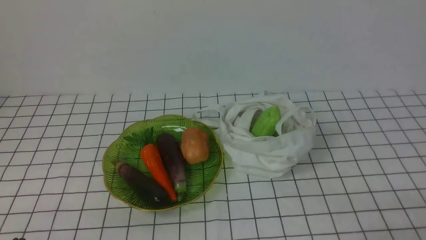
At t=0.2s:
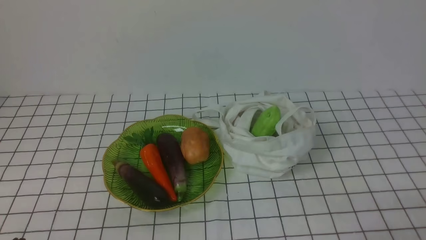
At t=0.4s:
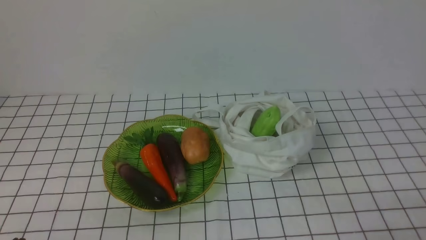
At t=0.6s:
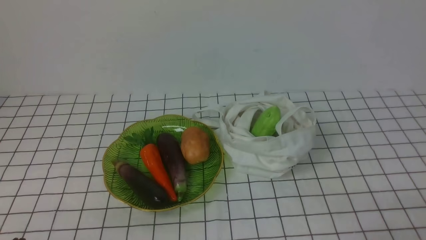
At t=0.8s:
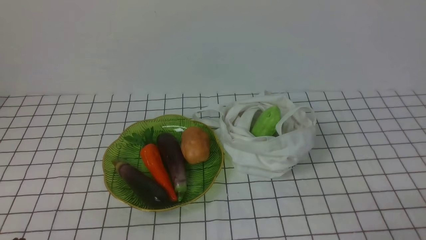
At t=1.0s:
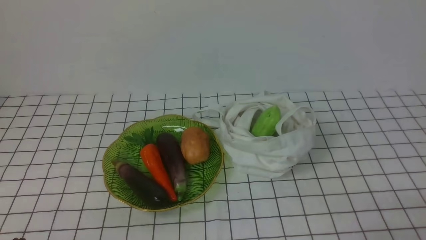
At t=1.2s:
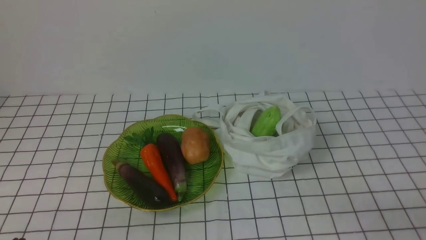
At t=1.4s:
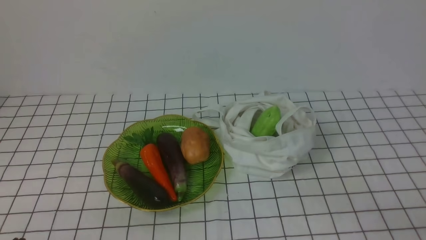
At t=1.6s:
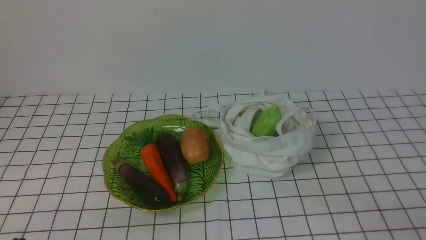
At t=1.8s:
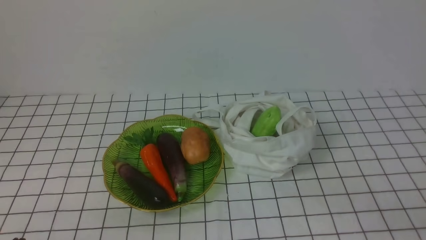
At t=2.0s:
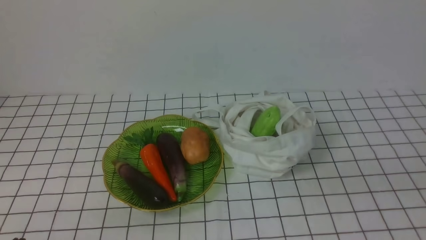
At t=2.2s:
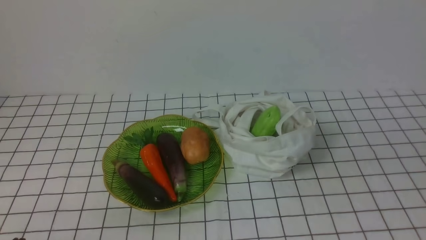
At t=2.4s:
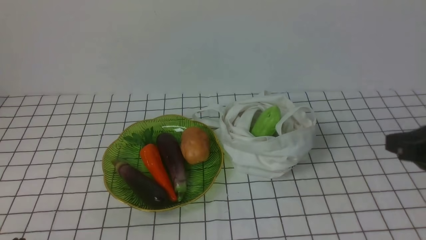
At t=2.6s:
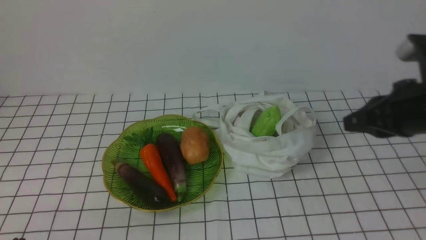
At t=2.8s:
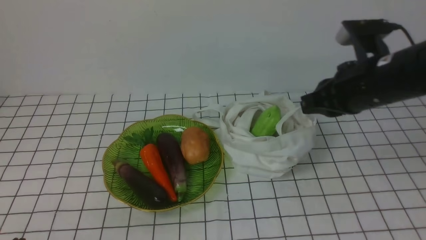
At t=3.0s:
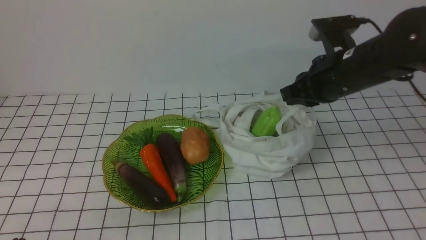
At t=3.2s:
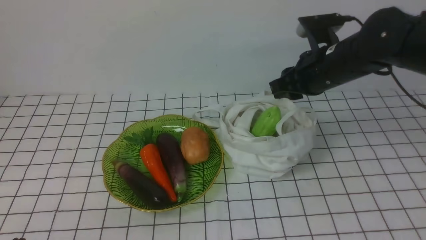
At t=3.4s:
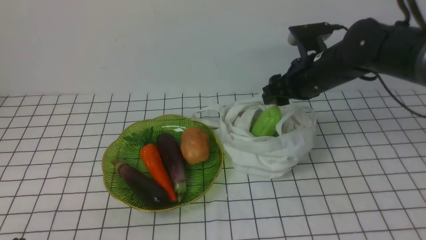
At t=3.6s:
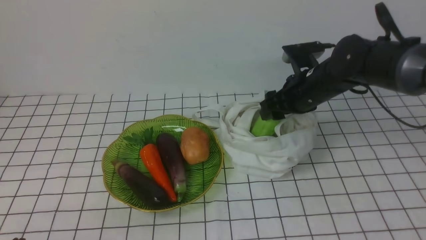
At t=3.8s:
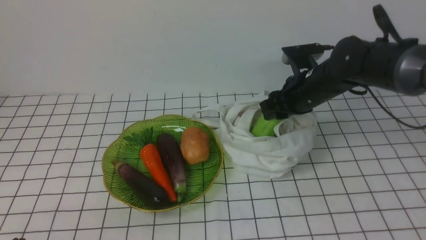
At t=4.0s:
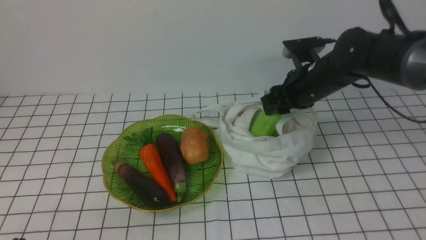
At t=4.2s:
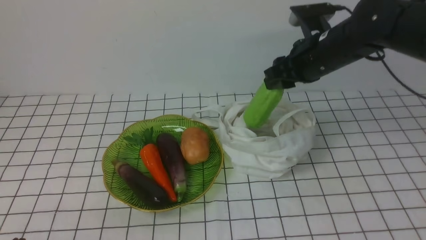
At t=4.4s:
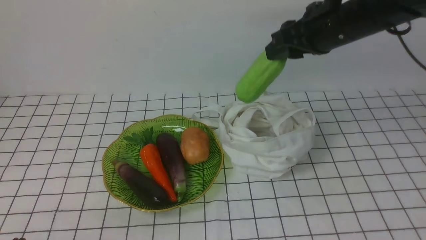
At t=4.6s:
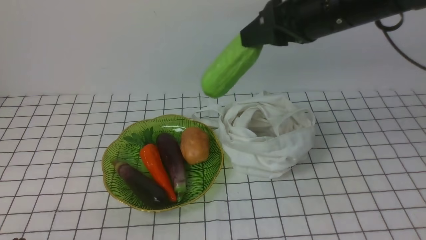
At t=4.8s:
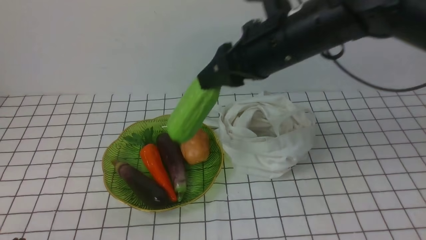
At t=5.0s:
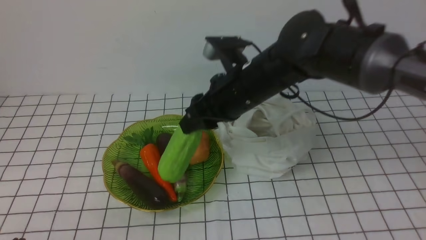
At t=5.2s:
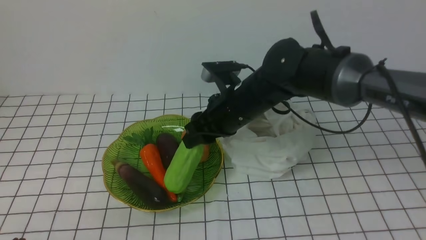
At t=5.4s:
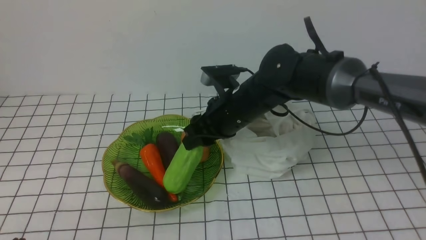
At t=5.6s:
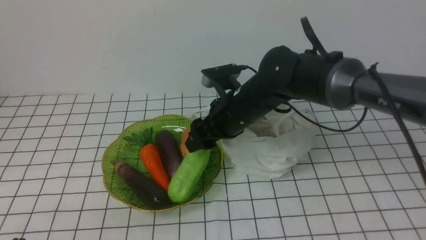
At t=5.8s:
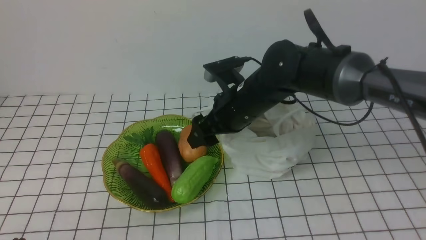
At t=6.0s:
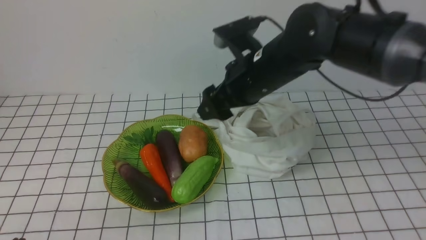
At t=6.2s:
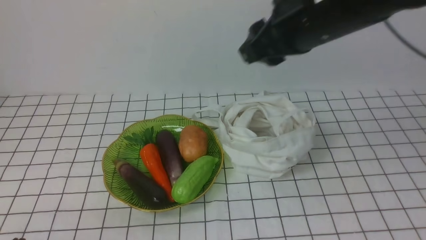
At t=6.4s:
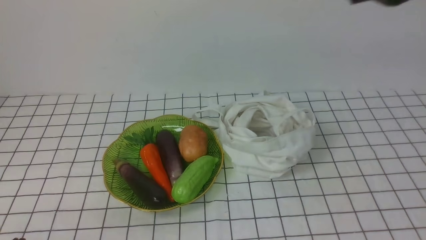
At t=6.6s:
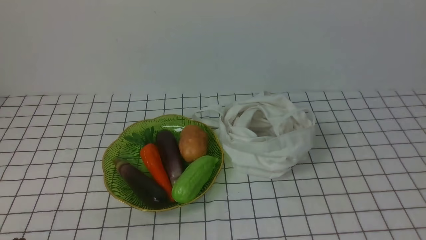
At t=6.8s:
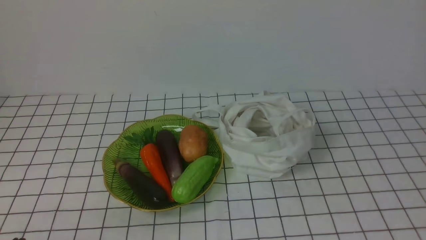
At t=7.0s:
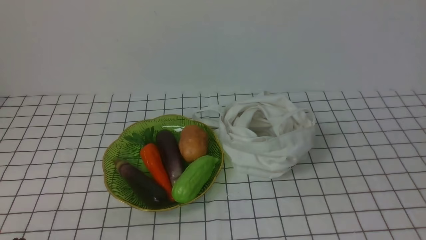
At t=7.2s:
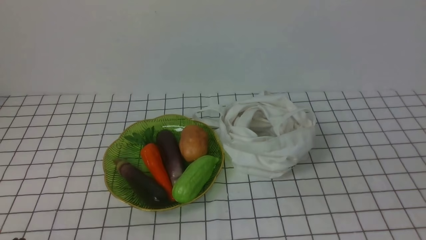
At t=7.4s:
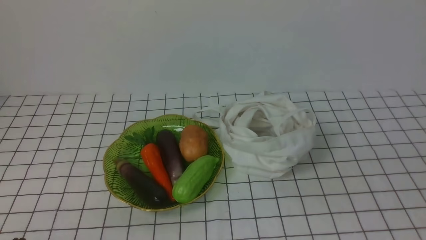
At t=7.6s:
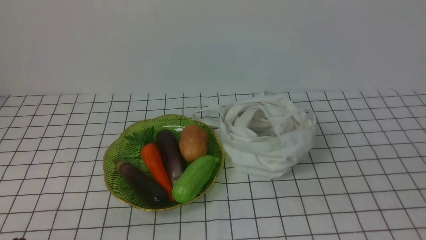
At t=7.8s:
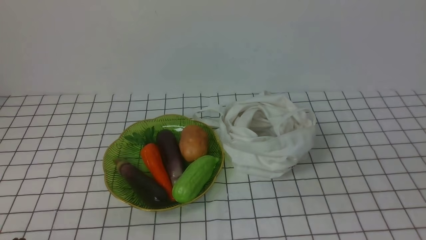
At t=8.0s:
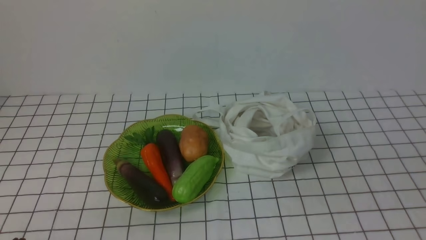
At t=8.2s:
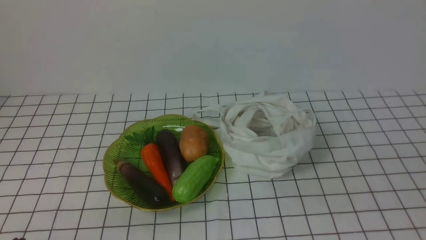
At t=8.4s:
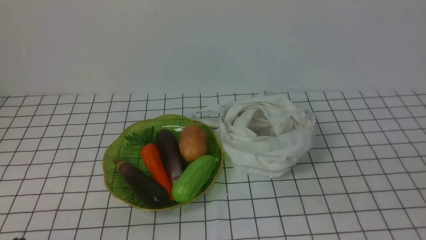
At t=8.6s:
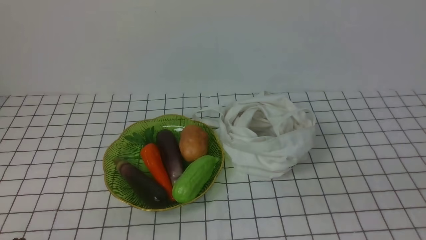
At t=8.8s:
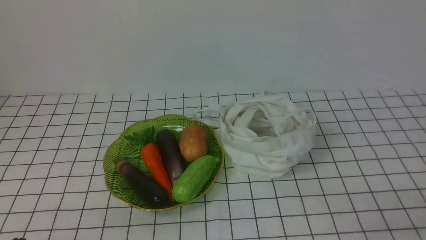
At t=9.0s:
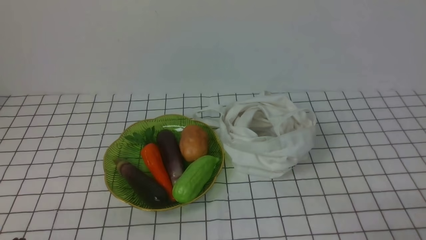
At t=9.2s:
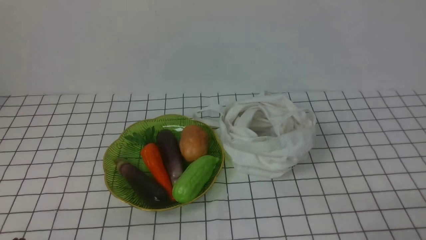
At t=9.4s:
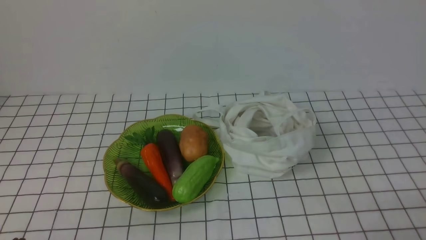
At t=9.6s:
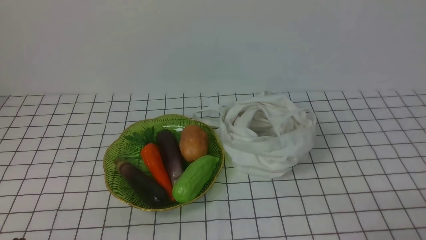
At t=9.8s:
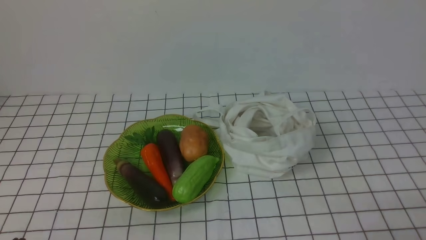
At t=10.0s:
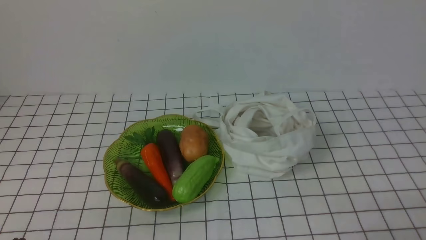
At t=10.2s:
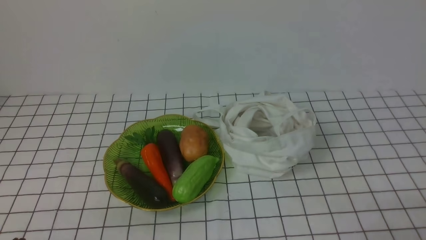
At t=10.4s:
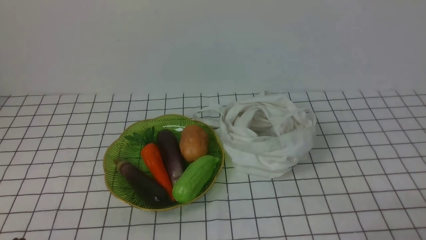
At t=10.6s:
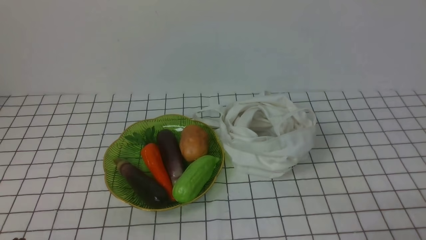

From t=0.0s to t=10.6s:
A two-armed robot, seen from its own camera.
Task of the whole recording: take vegetables from bag on white checkered tablecloth place on plate.
Step, from t=0.0s to t=3.6s: Grasp the bitter melon with right gripper.
Step, from t=3.8s to t=5.6s: Place the bitter melon on the plate with right gripper.
From t=1.6s to t=3.0s: The right gripper travels forward and to the left by approximately 30 cm.
From t=3.0s to t=4.6s: The right gripper is displaced upward and to the left by approximately 10 cm, and opens its fingers.
From t=4.6s to t=6.0s: The right gripper moves some 15 cm downward and comes back.
From t=6.0s to t=7.6s: The right gripper shifts some 35 cm backward and to the right, and closes up.
From t=9.0s to t=10.6s: Both grippers stay put.
